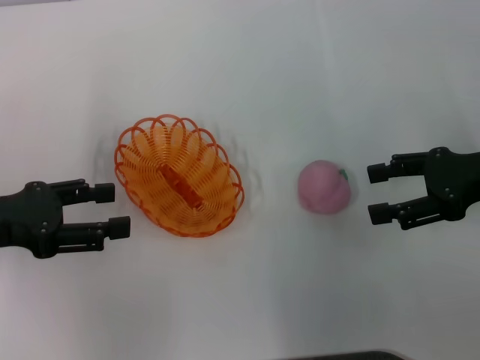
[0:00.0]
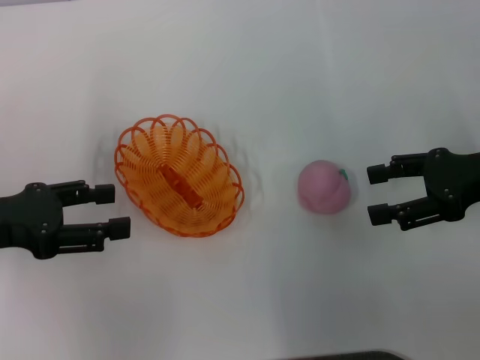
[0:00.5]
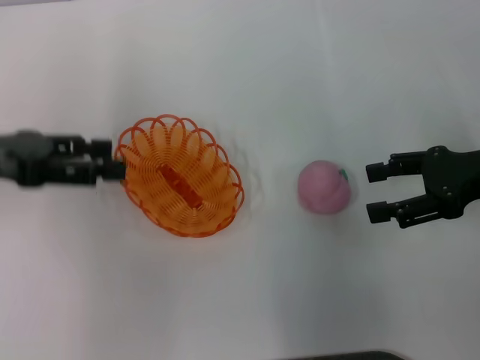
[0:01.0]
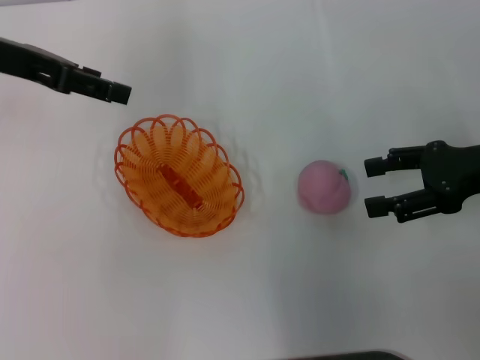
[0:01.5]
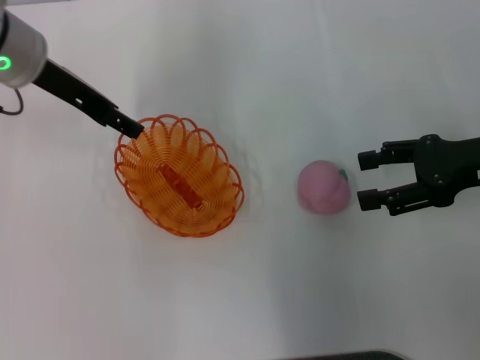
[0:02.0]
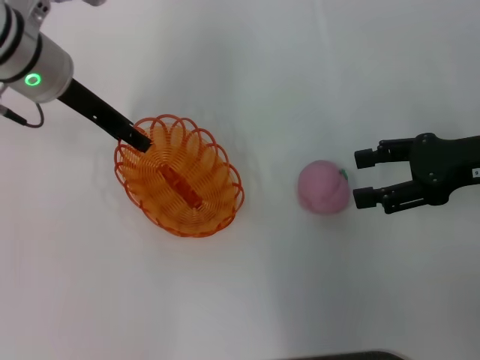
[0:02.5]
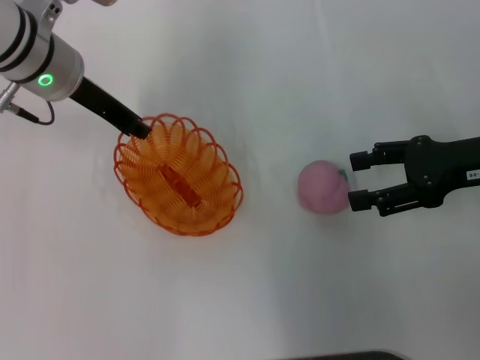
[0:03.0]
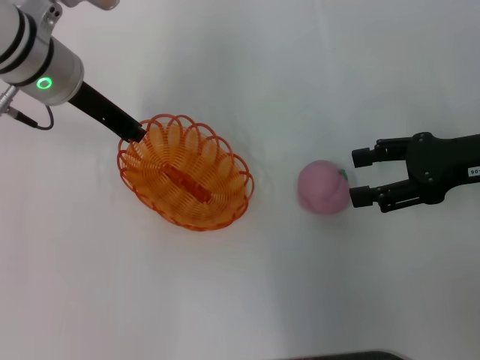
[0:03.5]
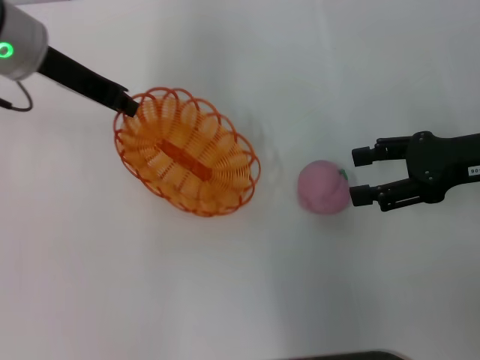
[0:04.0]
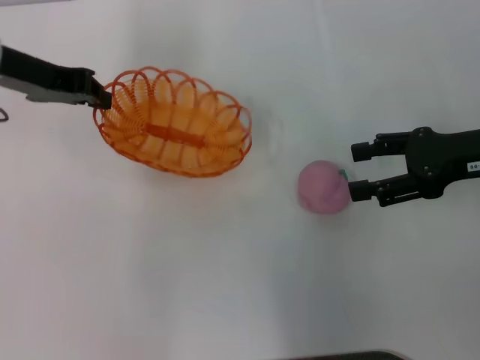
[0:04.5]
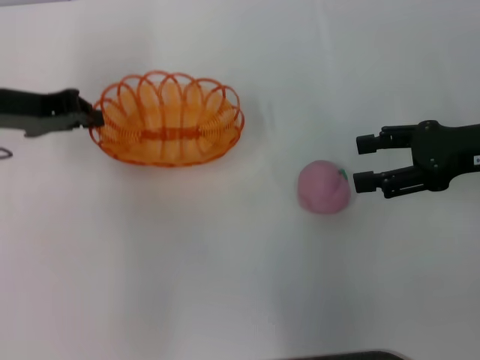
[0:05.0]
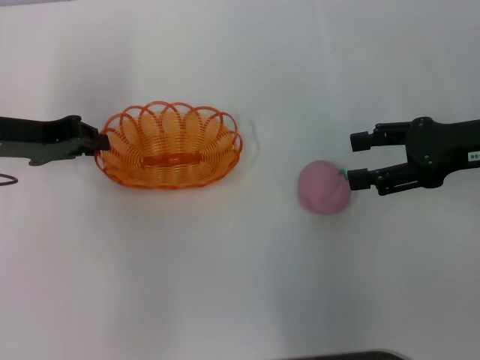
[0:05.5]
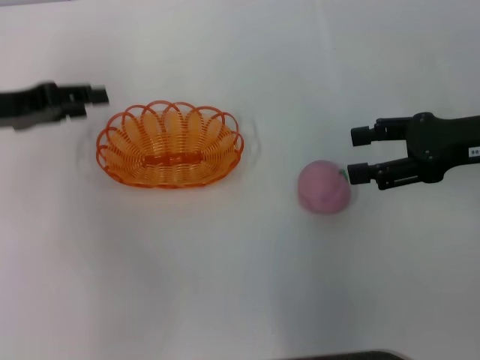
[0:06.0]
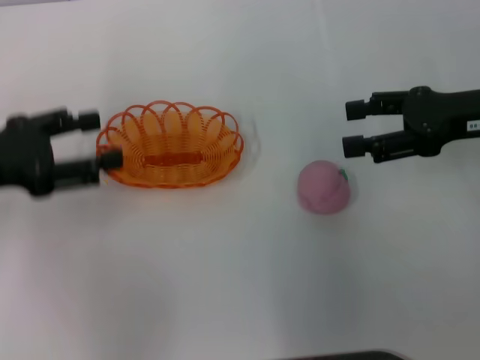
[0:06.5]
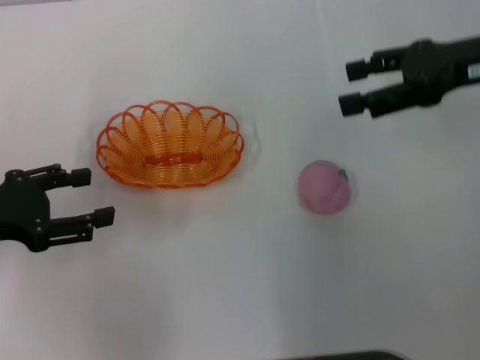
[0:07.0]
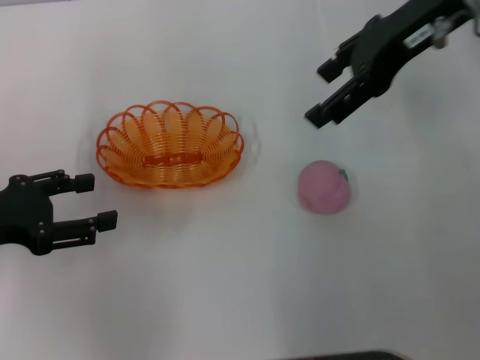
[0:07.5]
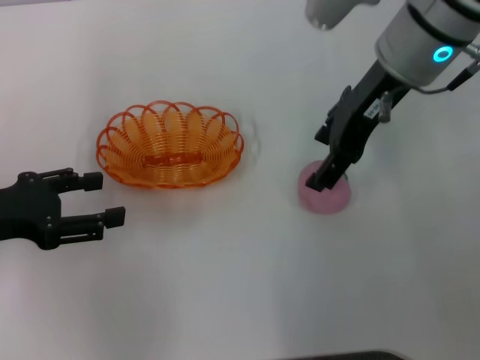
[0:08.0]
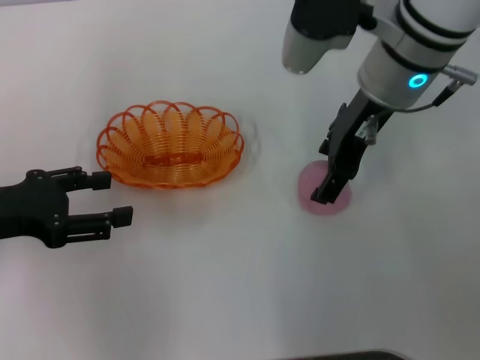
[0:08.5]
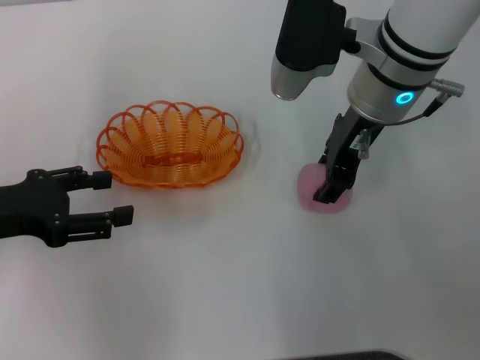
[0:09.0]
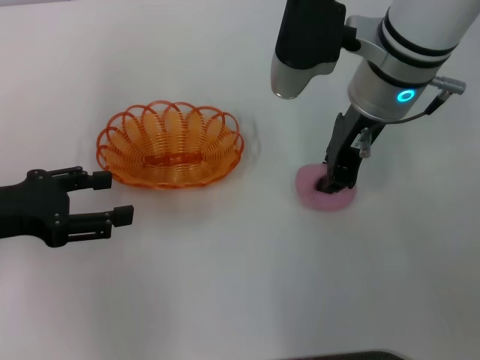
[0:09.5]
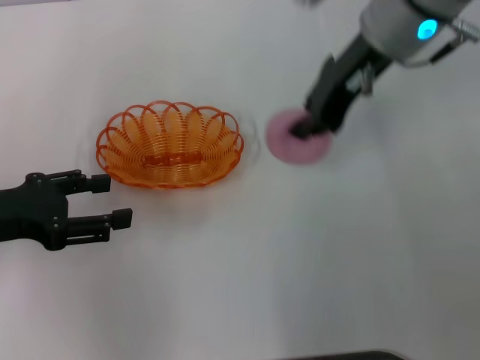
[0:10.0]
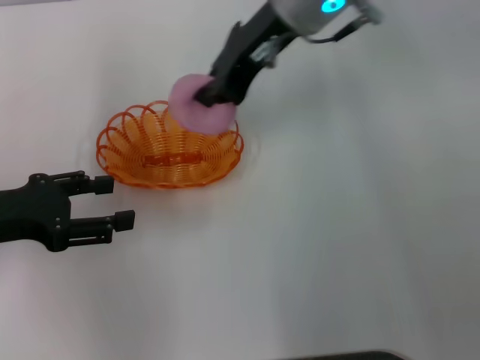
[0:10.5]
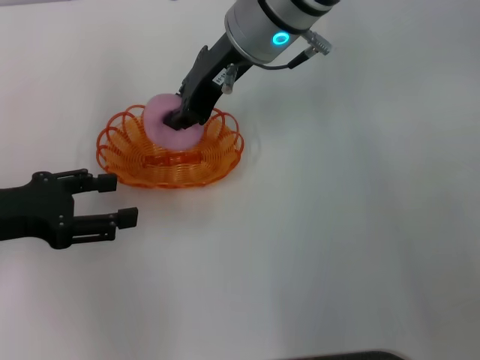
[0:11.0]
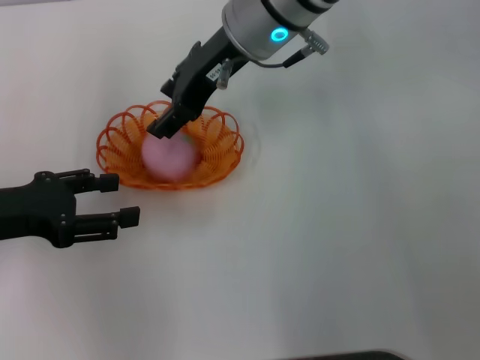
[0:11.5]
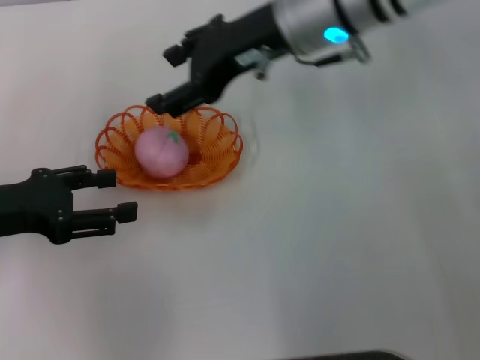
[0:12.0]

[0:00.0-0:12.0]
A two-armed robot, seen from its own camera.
Step, 0:00.0 to 0:03.0: Pick up the basket with the left gripper.
Step, 0:04.0 to 0:06.0: Place the basket in the center of view with the left gripper.
Step, 0:06.5 to 0:10.0: Pick up the peach with the right gripper.
0:00.0 to 0:02.0: The left gripper heads forward, to the right and upward, covering approximately 20 cm.
0:02.0 to 0:04.0: The left gripper closes up.
0:04.0 to 0:06.0: The left gripper travels to the left, backward and downward by some 10 cm, and opens its fingers.
0:06.0 to 0:08.0: The right gripper heads to the left, upward and forward, covering roughly 20 cm, while the left gripper goes about 10 cm backward, and opens.
0:08.0 to 0:10.0: The right gripper closes its fingers.
0:10.0 to 0:12.0: The right gripper opens its fingers.

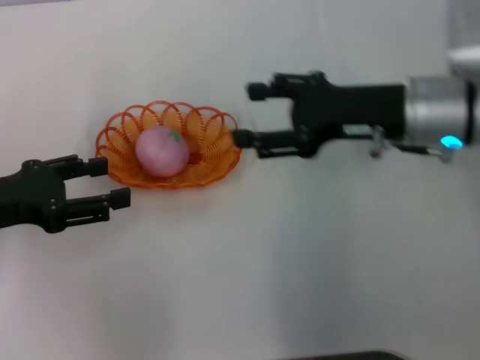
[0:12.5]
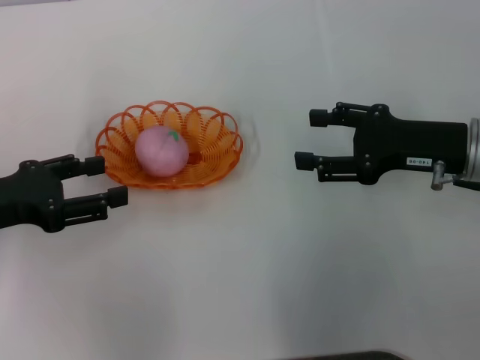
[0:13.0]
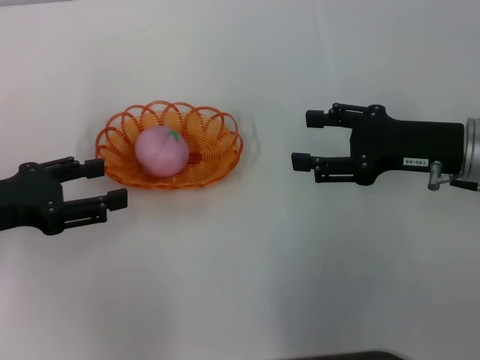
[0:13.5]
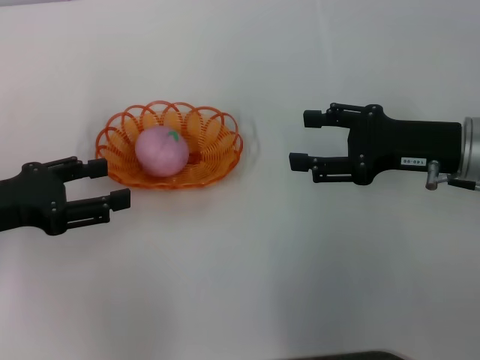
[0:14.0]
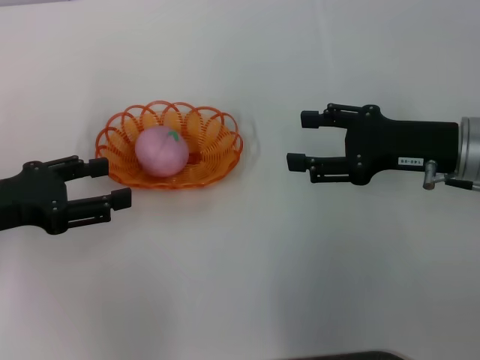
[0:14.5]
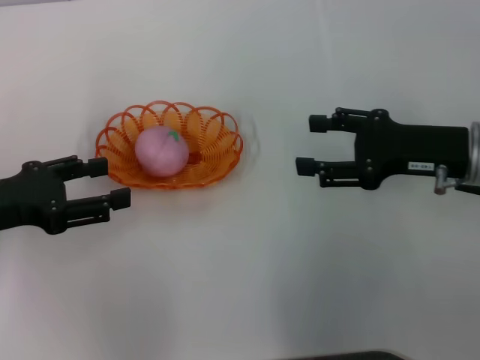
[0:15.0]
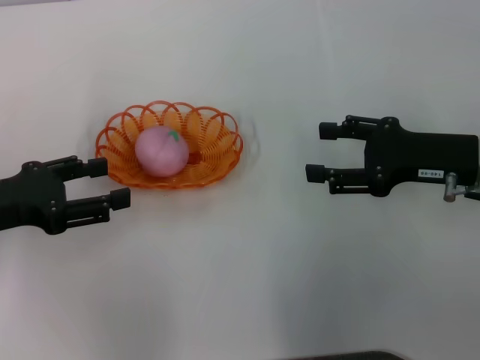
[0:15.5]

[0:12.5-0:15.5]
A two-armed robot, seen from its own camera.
0:12.5 to 0:14.0: The right gripper moves to the right, some 5 cm.
0:14.0 to 0:15.5: There are only small adjustments of the grippers.

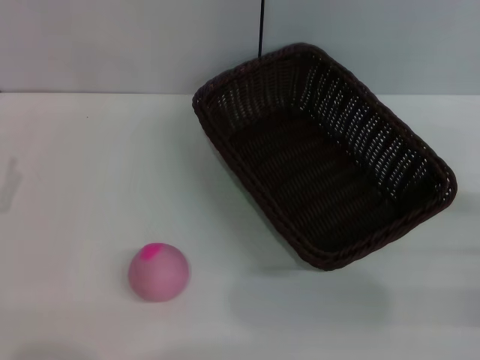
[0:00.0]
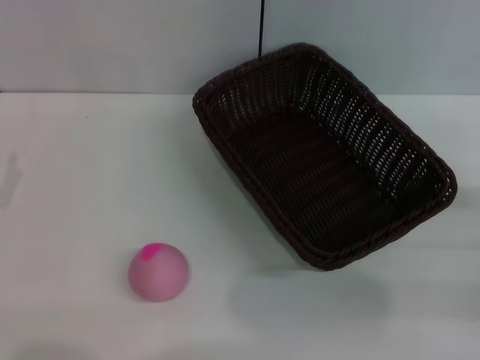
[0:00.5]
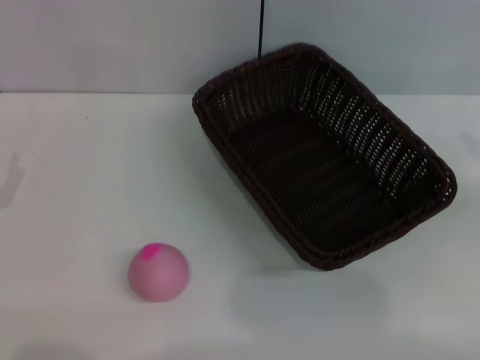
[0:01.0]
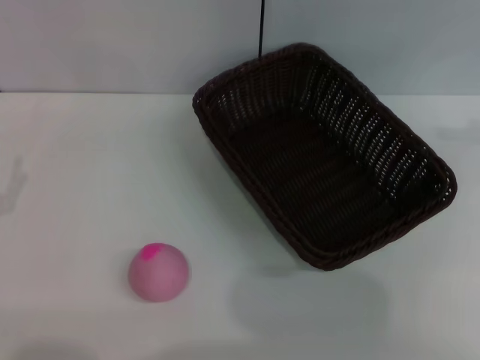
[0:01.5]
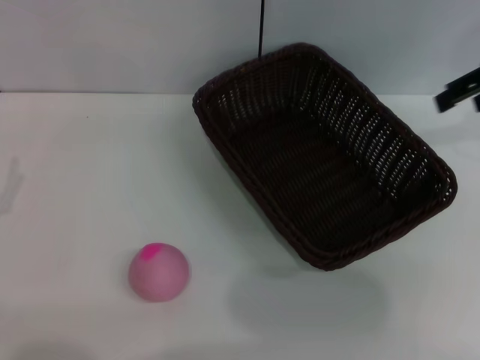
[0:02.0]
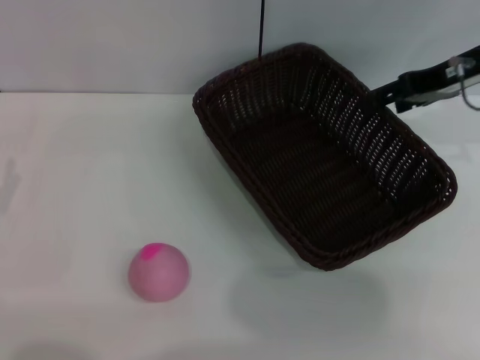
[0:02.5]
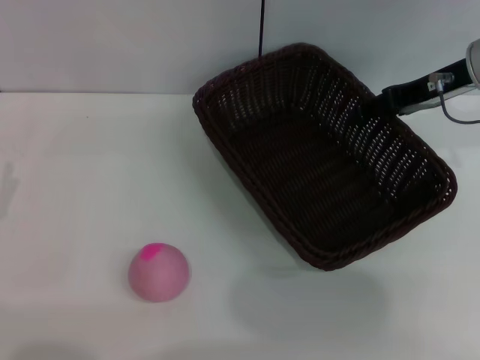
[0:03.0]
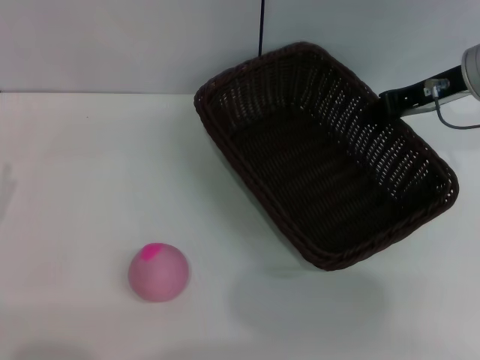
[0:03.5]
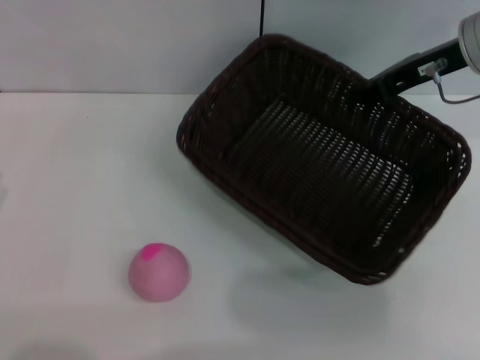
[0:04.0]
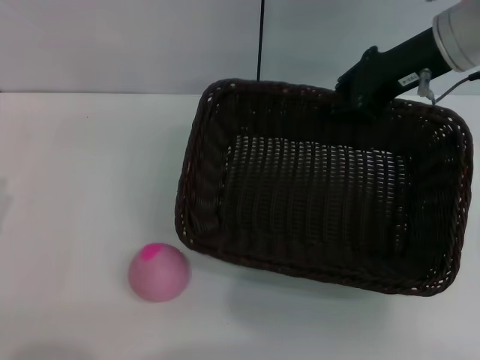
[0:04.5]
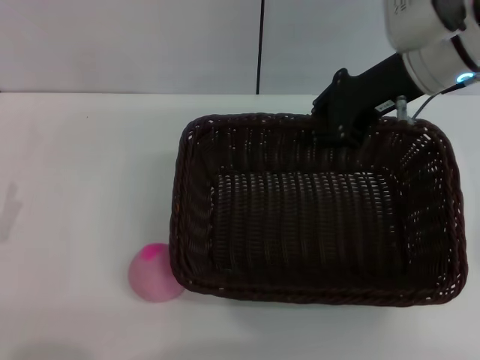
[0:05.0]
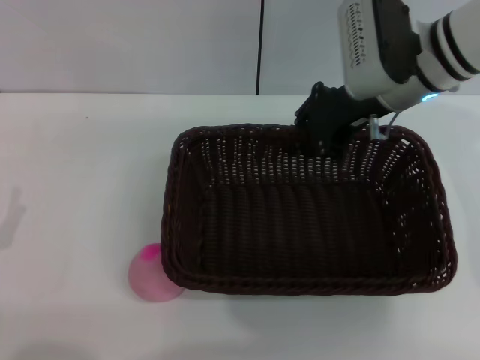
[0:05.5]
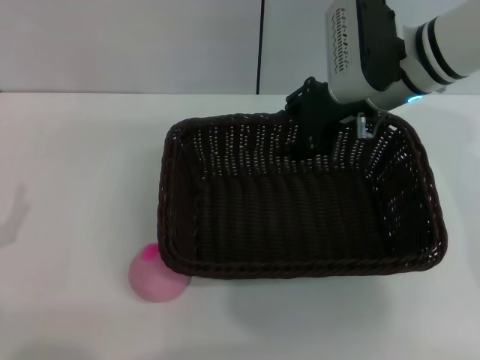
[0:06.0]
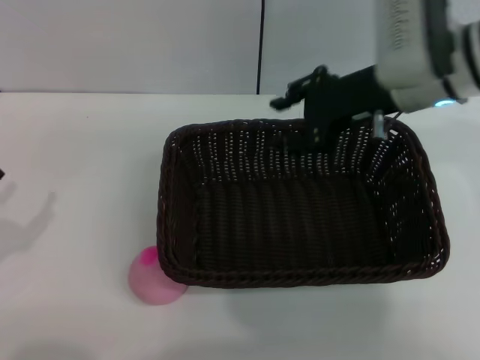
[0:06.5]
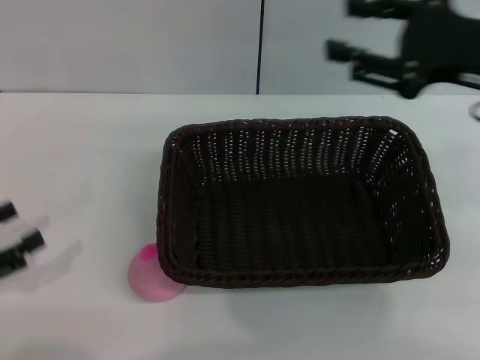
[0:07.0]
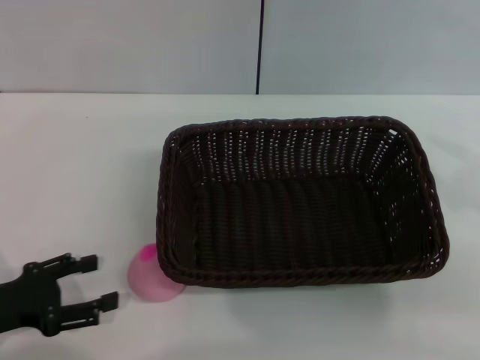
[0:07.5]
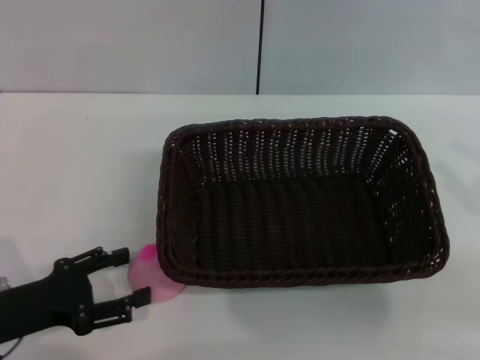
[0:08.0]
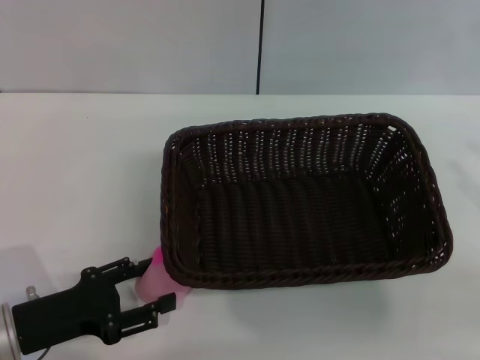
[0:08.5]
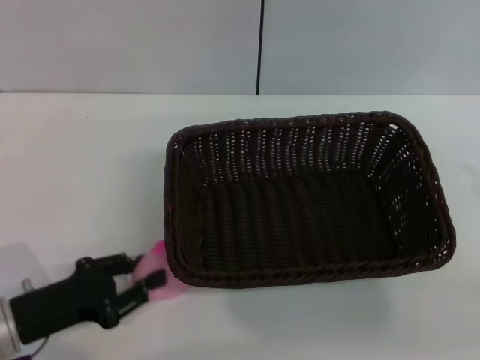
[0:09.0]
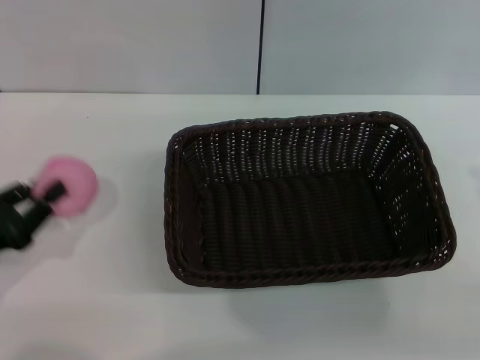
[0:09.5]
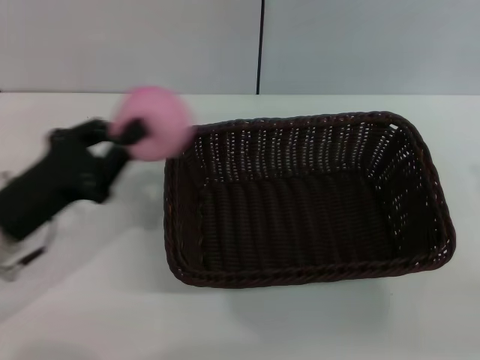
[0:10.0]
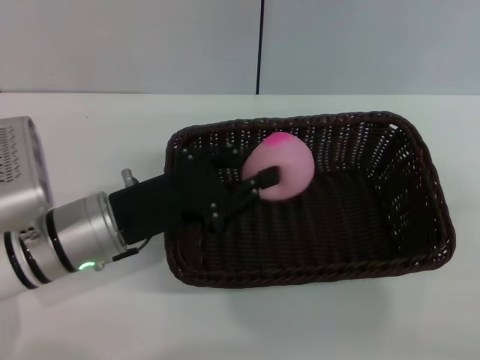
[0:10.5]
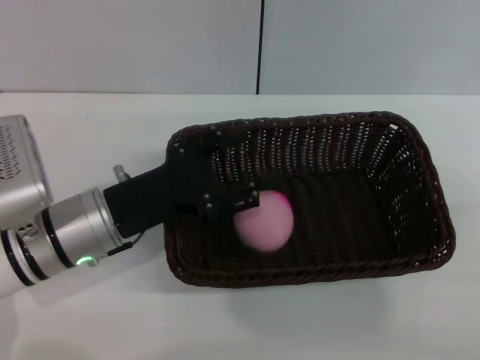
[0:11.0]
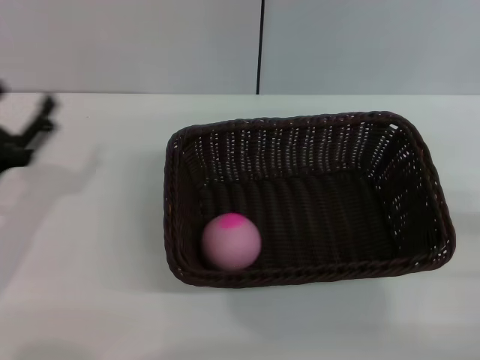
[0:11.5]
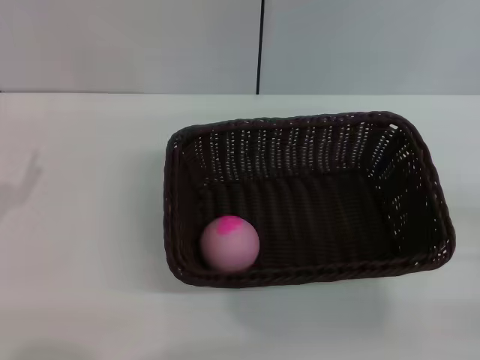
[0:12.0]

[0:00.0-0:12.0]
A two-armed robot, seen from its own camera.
Step, 0:00.0 to 0:03.5: Pick up the dark basket with the right gripper.
Step, 0:04.0 to 0:06.5: Place the dark basket in the center of view with the right gripper.
Step, 0:07.0 to 0:09.5: Pick up the peach with the left gripper.
Step, 0:10.0 to 0:11.0: Place the peach into the basket with the left gripper.
0:00.0 to 0:02.0: The right gripper heads upward and forward, covering some 30 cm.
0:02.0 to 0:04.0: The right gripper moves to the left and downward, about 10 cm, and closes its fingers.
0:04.0 to 0:06.0: The right gripper travels to the left by about 10 cm.
0:06.0 to 0:08.0: The left gripper moves some 5 cm to the left and comes back; the right gripper shifts roughly 30 cm to the right and backward.
0:08.0 to 0:10.0: The left gripper changes place by roughly 10 cm, and closes.
0:10.0 to 0:12.0: The left gripper travels to the left by approximately 10 cm, and opens its fingers. The right gripper goes some 10 cm downward.
